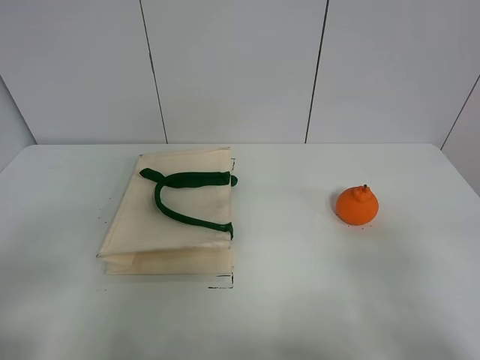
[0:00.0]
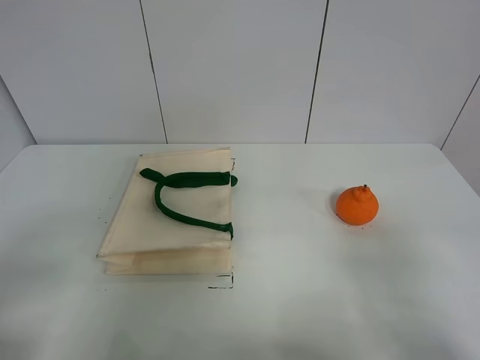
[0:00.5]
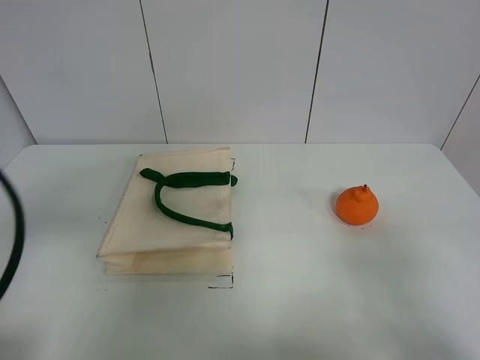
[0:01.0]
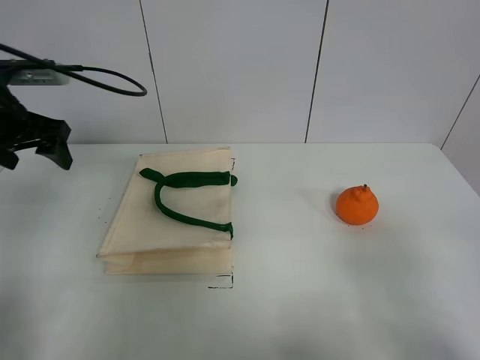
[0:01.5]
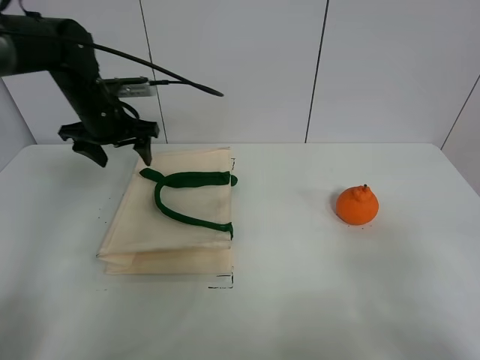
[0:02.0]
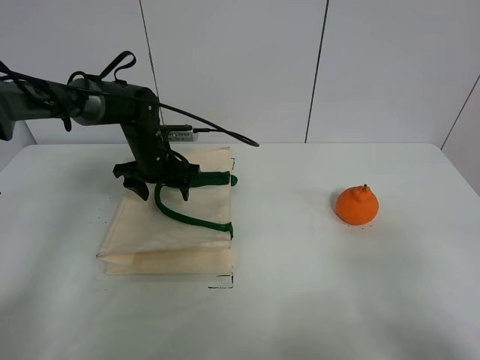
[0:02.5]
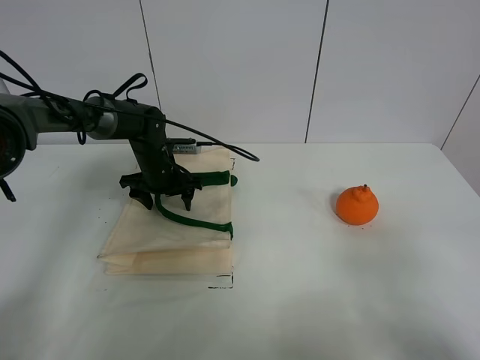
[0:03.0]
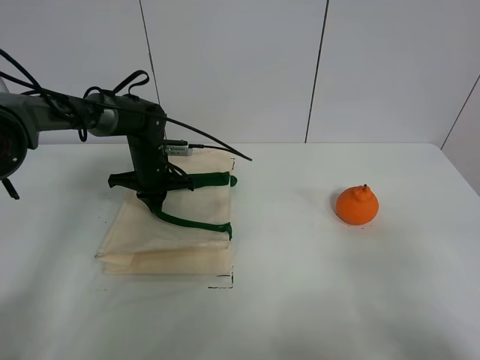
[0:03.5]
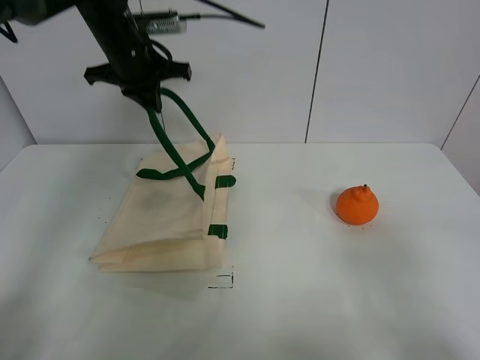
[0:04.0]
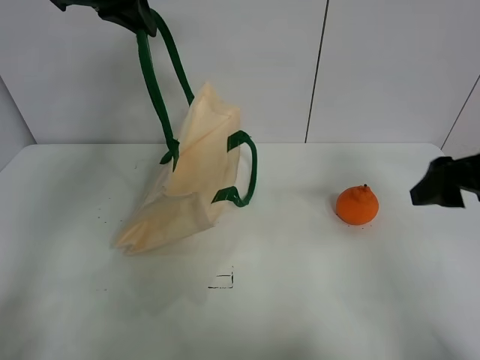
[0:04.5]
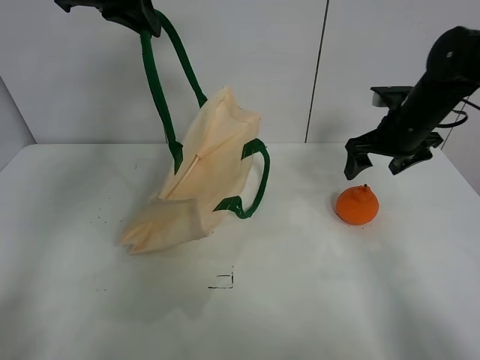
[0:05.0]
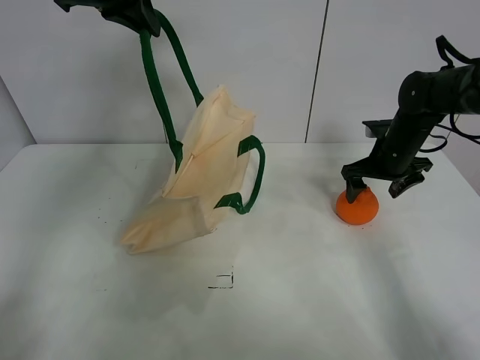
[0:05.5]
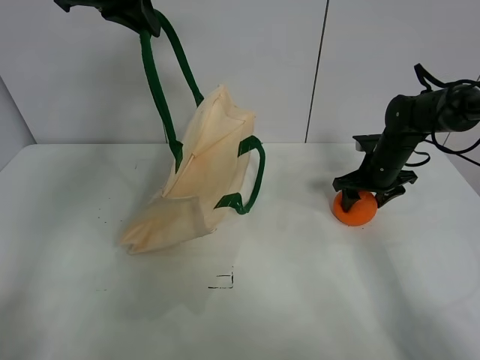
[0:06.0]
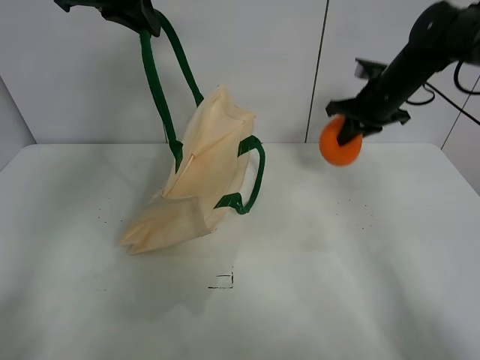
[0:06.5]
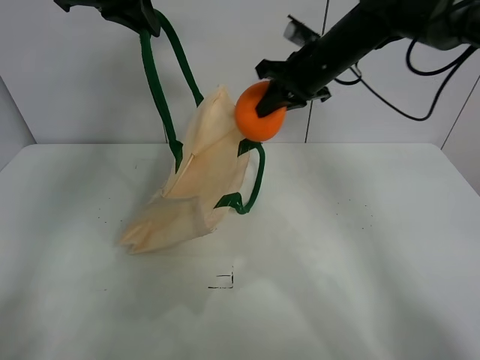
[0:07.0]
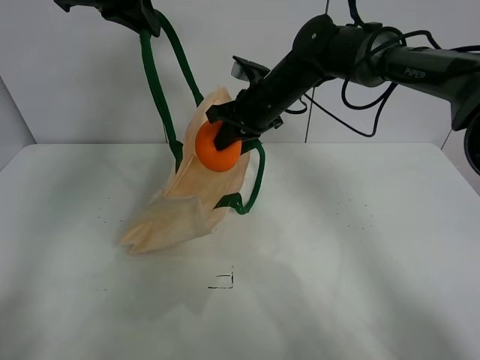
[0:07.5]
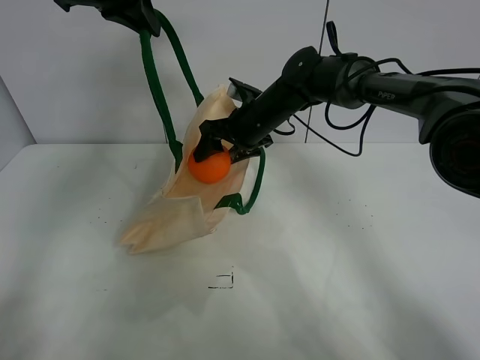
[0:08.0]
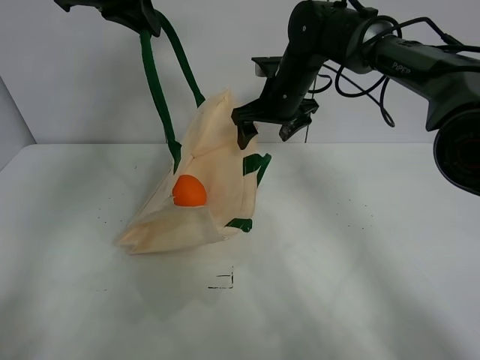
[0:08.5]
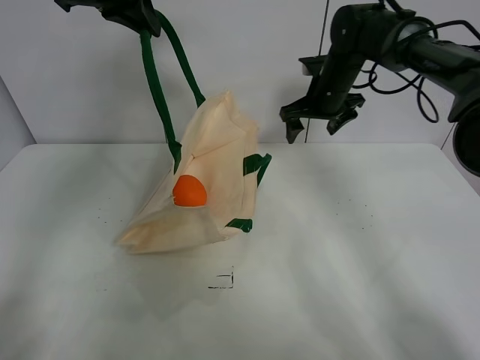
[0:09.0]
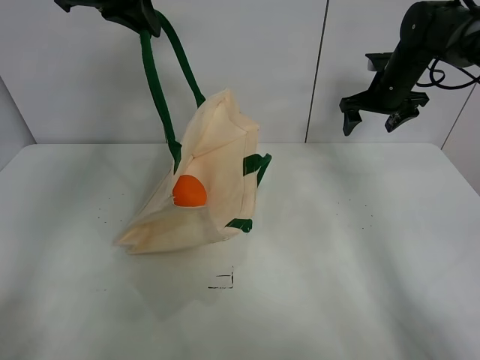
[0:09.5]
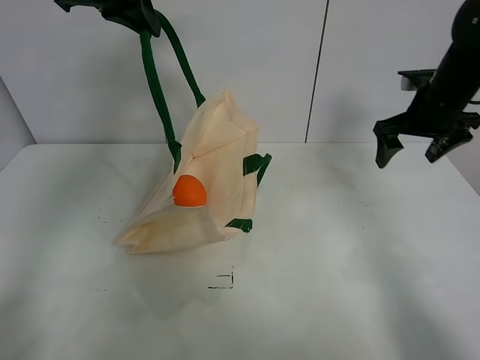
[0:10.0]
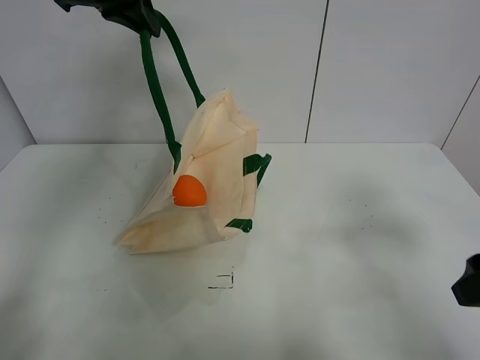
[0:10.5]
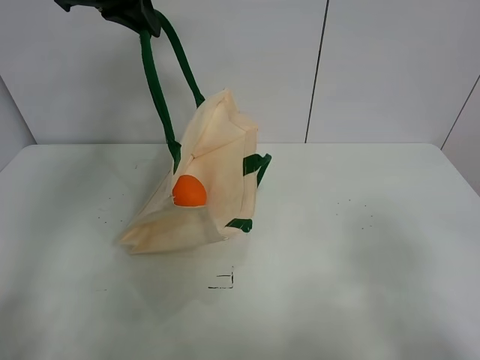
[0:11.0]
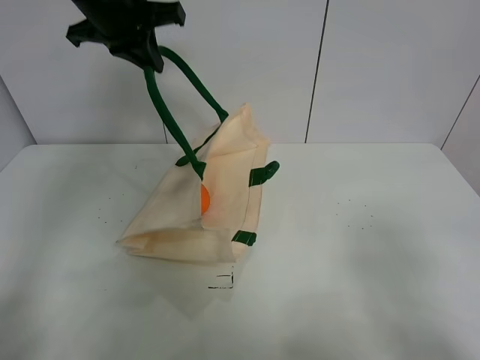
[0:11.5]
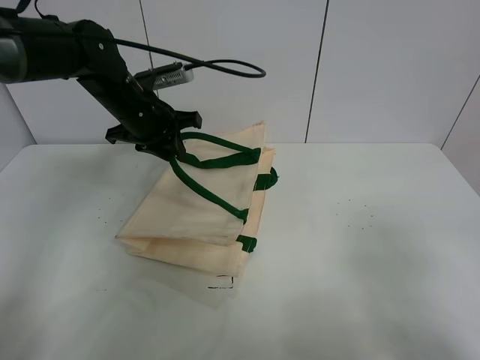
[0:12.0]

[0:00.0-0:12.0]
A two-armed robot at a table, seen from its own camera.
Task of the whole recording: open the white linen bag and put the orange in the bag.
Step, 0.0 to 3.5 s: Lift the handbag with left gripper.
Step, 4.0 to 6.0 s: Grasp the orange with right gripper.
Step, 6.5 to 8.0 s: Place the orange in the handbag with right gripper.
0.0 to 2.0 s: The left gripper moves forward, roughly 40 cm.
2.0 to 4.0 s: The left gripper moves upward, some 10 cm, and closes.
4.0 to 6.0 s: The right gripper goes approximately 40 cm forward, and closes up. The left gripper heads upward, covering about 10 cm.
6.0 to 8.0 s: The right gripper heads to the left, covering about 25 cm, and closes and opens again.
8.0 to 10.0 s: The right gripper is displaced to the right by roughly 25 cm.
10.0 to 12.0 s: The right gripper is displaced backward by some 35 cm. Meanwhile the left gripper moves downward, about 20 cm, and opens its fingers.

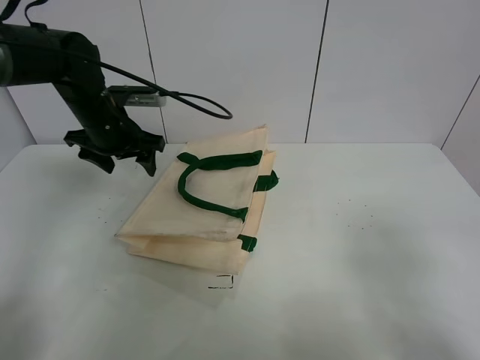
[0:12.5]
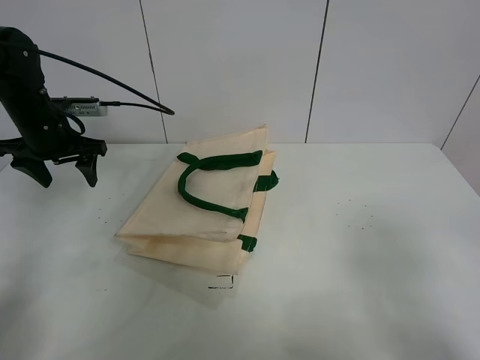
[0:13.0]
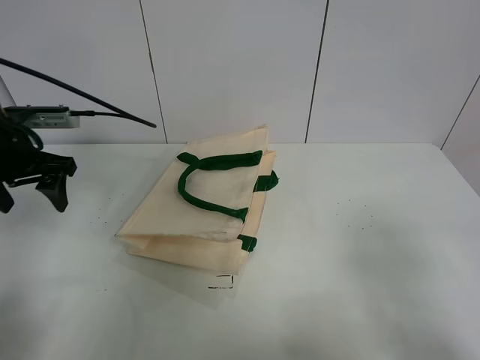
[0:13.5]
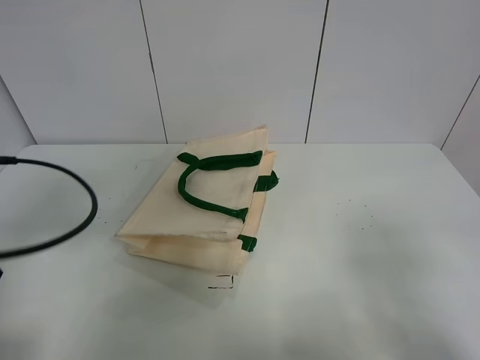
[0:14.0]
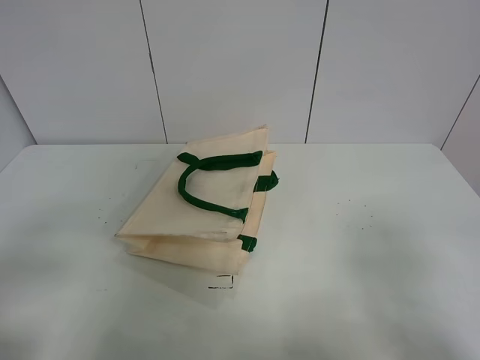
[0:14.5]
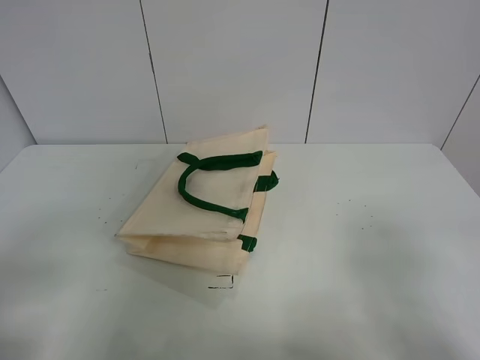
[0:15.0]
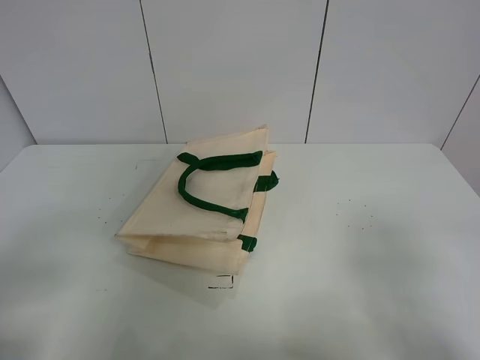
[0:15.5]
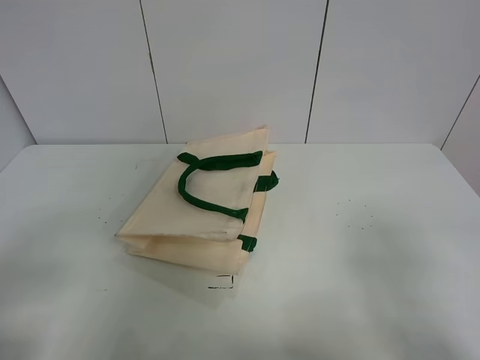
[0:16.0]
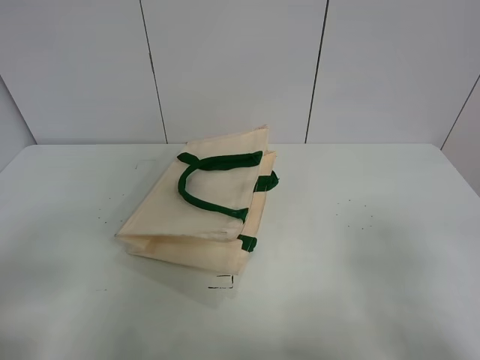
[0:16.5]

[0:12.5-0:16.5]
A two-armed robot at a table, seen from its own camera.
Task of the whole recording: open the white linen bag and put the orange in the bag.
12.5 to 14.5 s: The left gripper travels backward by about 40 cm.

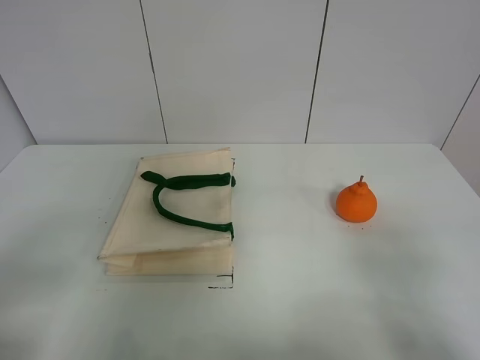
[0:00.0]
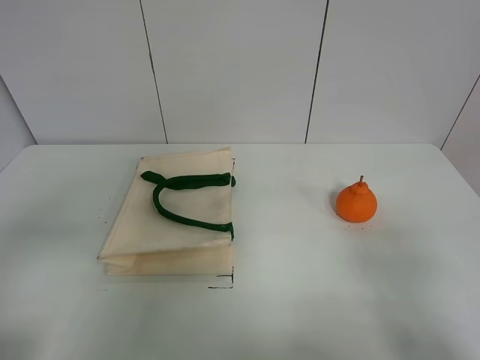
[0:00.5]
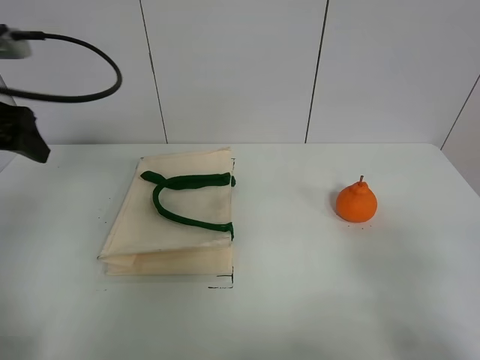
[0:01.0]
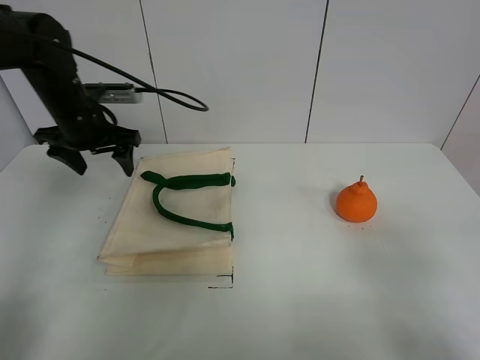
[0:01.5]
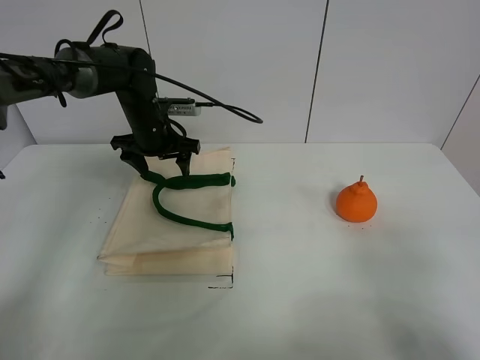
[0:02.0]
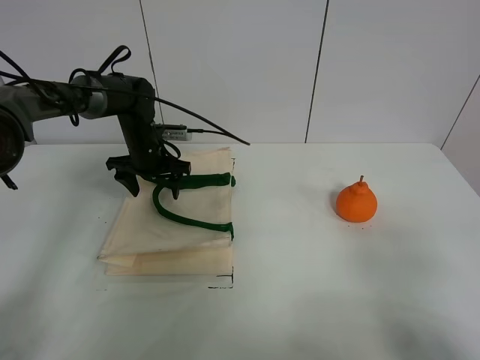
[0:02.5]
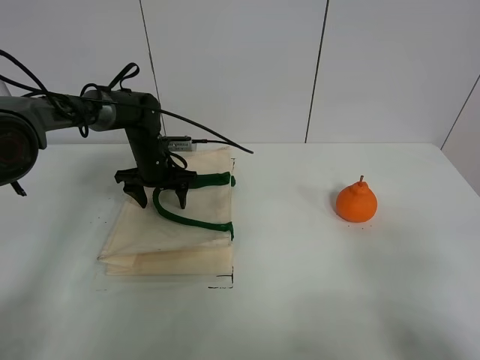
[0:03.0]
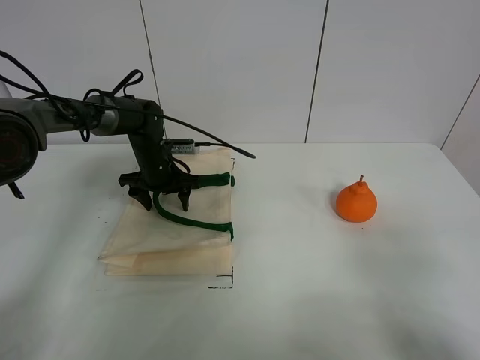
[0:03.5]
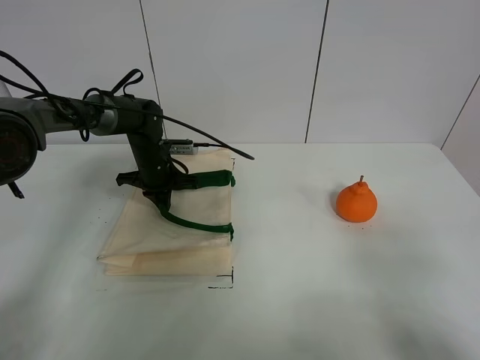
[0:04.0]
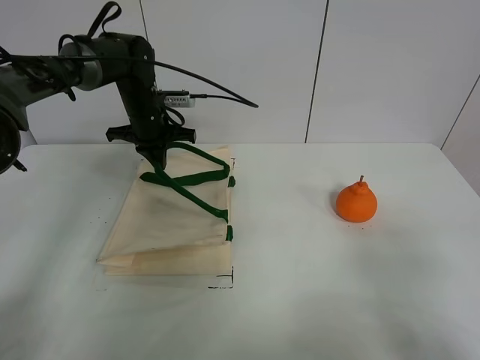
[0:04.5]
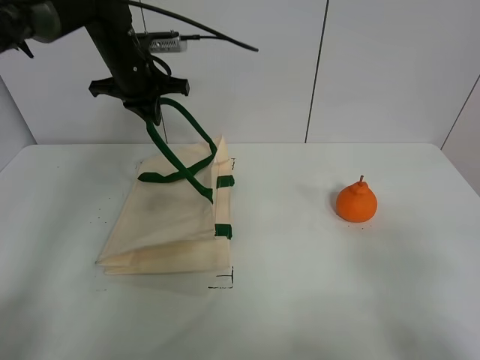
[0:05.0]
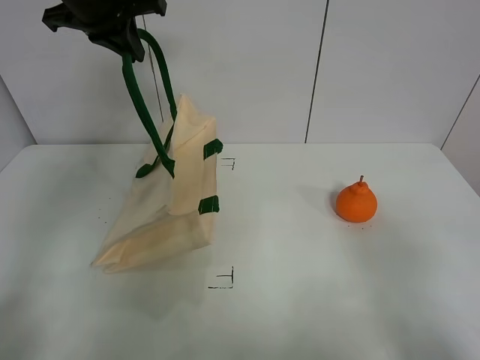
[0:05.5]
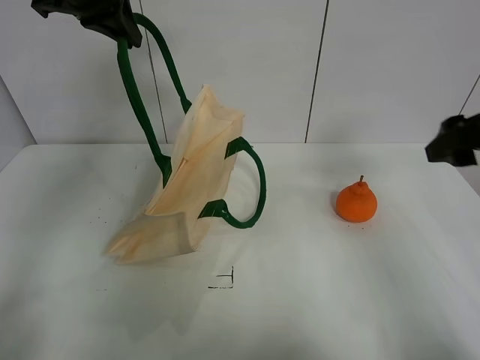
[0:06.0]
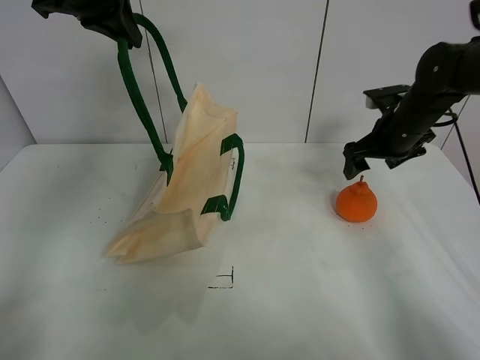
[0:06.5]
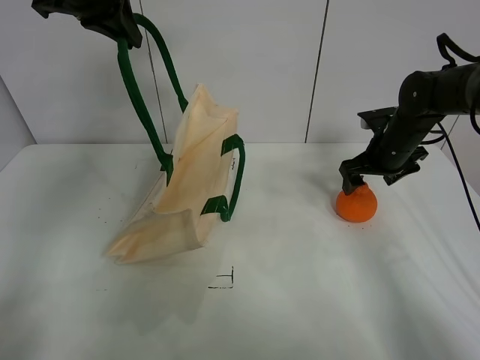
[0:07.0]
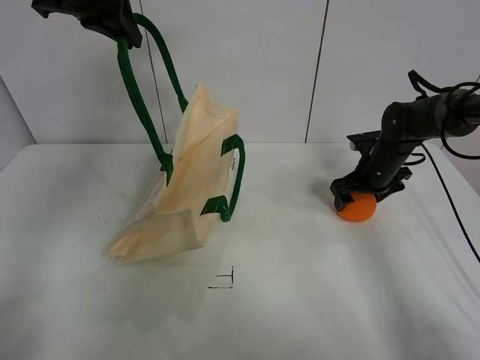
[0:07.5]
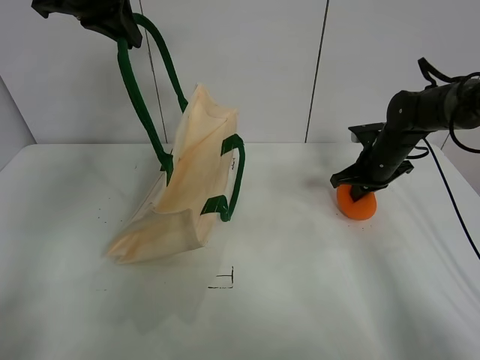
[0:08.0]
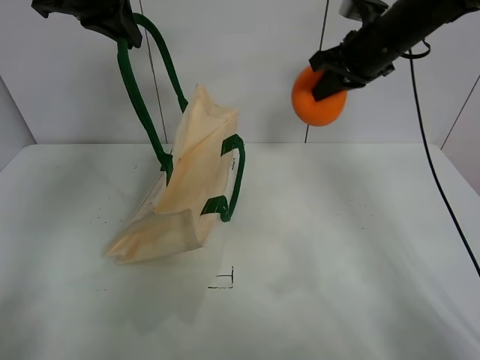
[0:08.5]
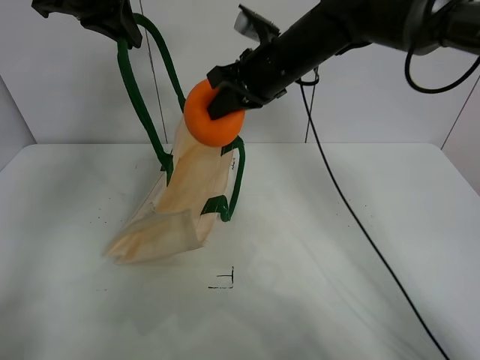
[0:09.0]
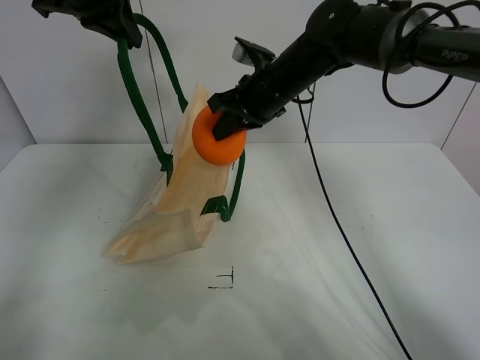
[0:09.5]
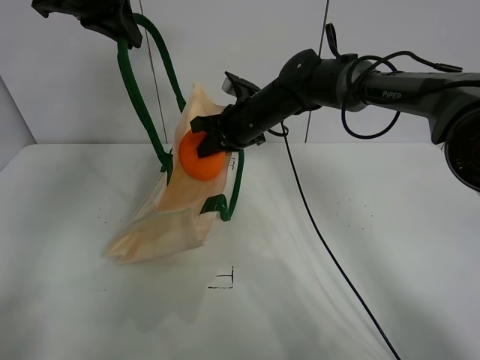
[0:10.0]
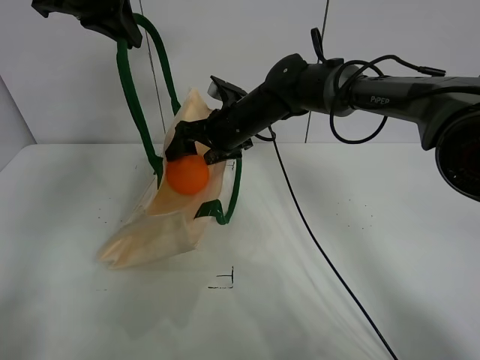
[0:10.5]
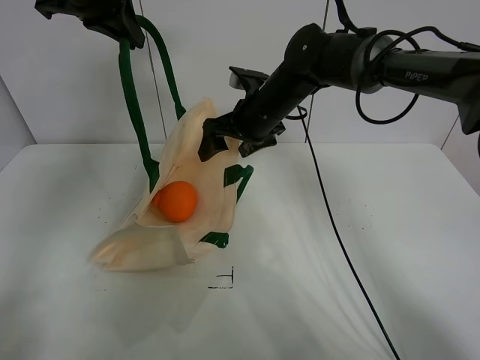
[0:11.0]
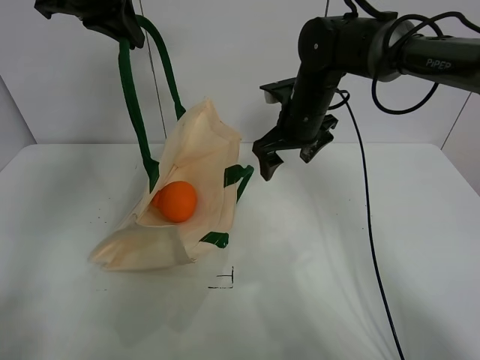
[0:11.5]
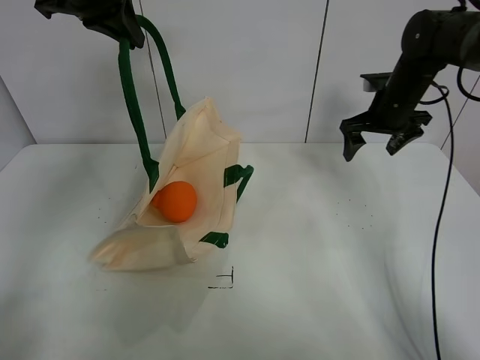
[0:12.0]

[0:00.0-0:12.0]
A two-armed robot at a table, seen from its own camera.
Task of the whole recording: open the white linen bag and put the orange in the bag.
Step, 0.0 to 5.0 s: Lift the handbag with left gripper.
Step, 5.5 to 7.5 s: Grasp the orange with right gripper.
Step, 8.0 to 10.5 s: Place the orange in the handbag with right gripper.
0.0 to 2.0 s: The left gripper goes roughly 50 cm forward.
2.0 to 4.0 s: The left gripper shifts some 10 cm downward, and closes.
4.0 to 6.0 s: The left gripper is displaced upward by some 35 cm. Meanwhile the right gripper travels forward by about 25 cm.
6.0 to 8.0 s: The right gripper is displaced downward and forward by some 25 cm, and closes.
8.0 to 10.0 s: The right gripper is displaced to the left by approximately 25 cm.
10.0 to 12.0 s: The right gripper travels to the right by roughly 25 cm, and opens up.
